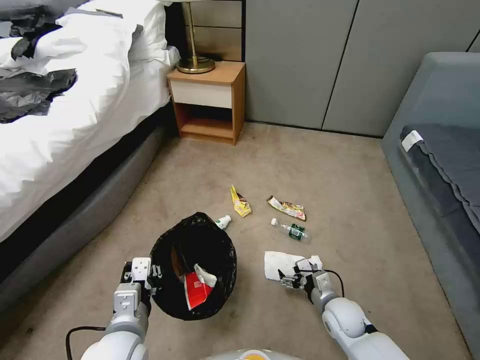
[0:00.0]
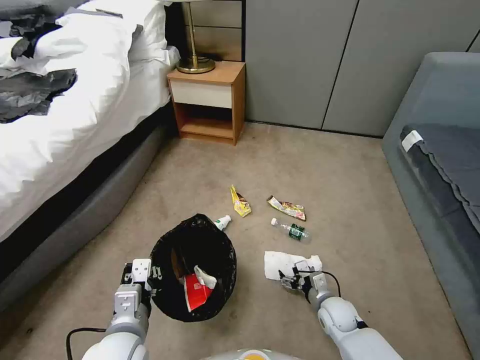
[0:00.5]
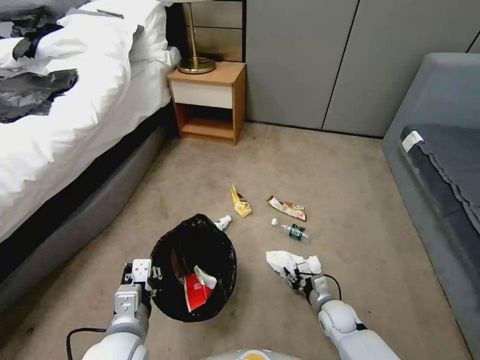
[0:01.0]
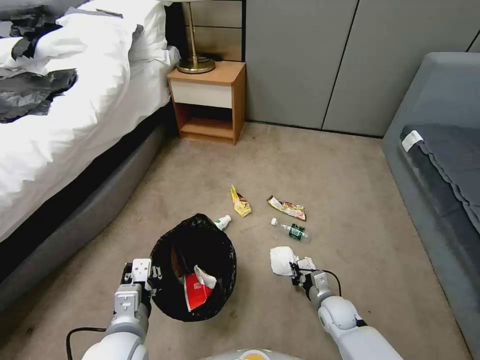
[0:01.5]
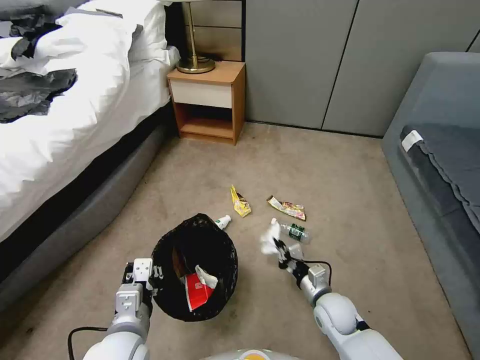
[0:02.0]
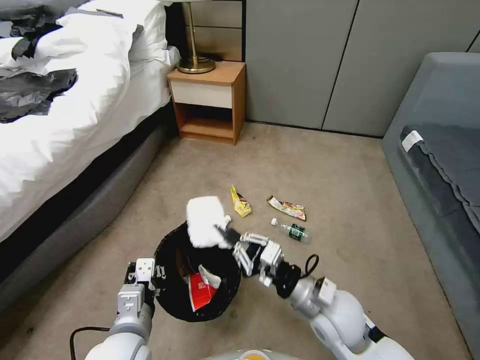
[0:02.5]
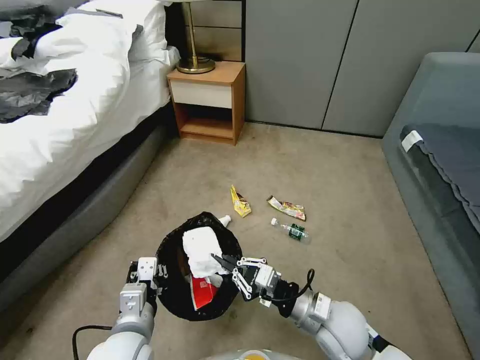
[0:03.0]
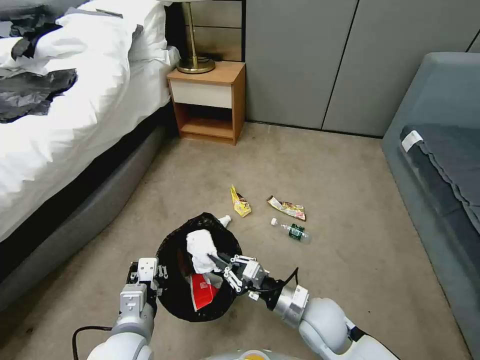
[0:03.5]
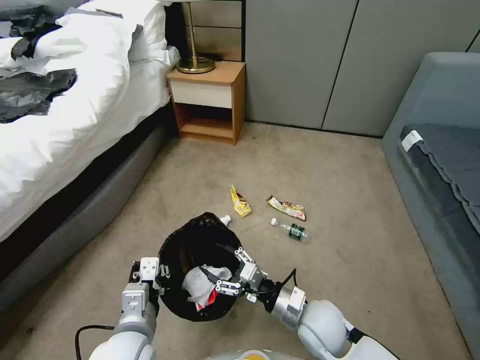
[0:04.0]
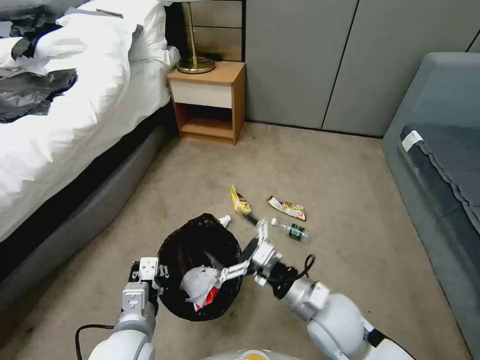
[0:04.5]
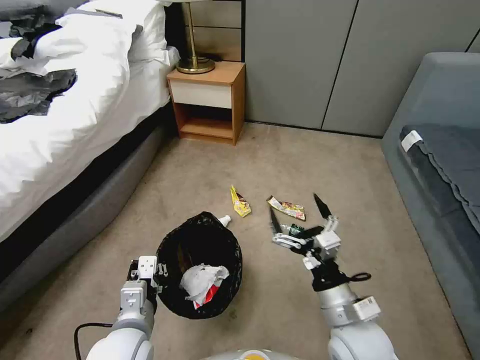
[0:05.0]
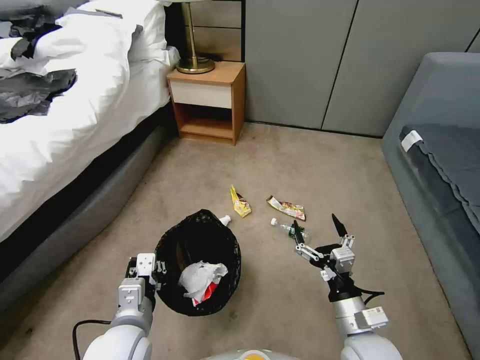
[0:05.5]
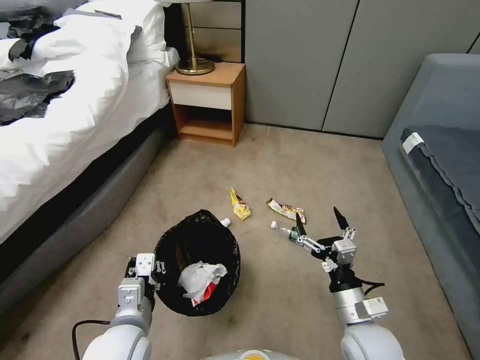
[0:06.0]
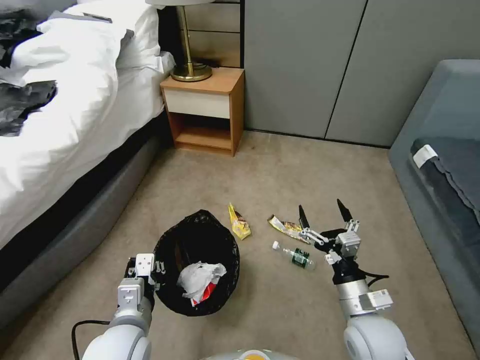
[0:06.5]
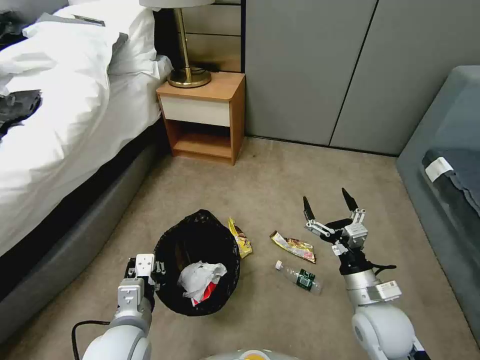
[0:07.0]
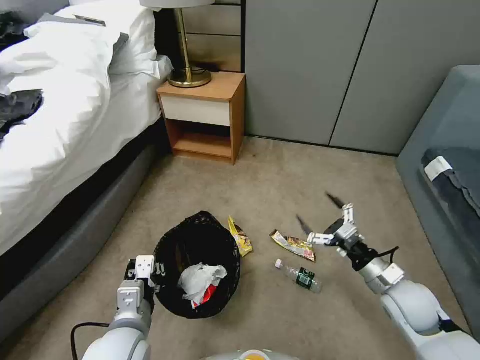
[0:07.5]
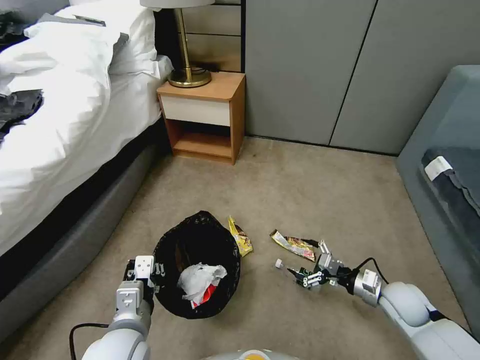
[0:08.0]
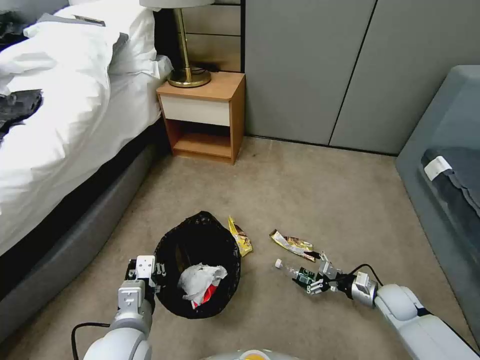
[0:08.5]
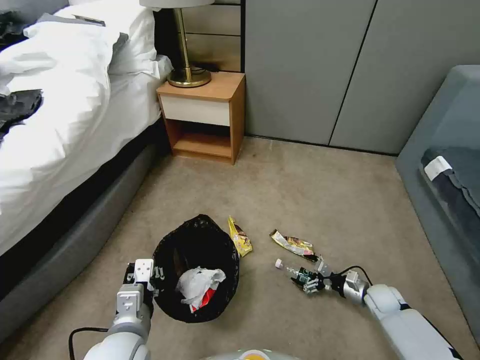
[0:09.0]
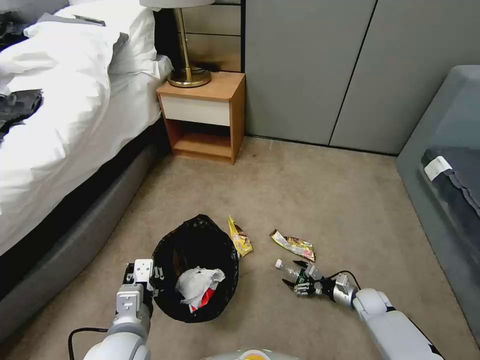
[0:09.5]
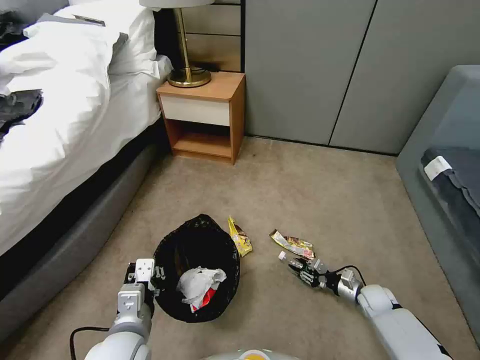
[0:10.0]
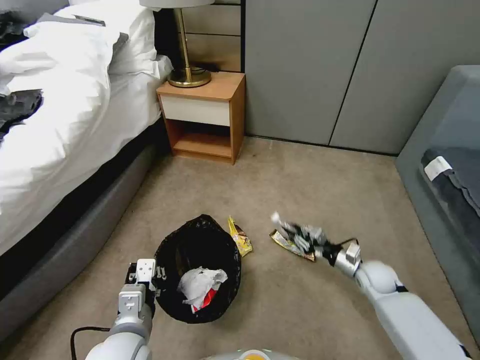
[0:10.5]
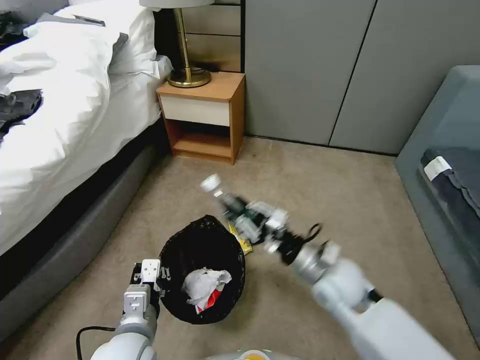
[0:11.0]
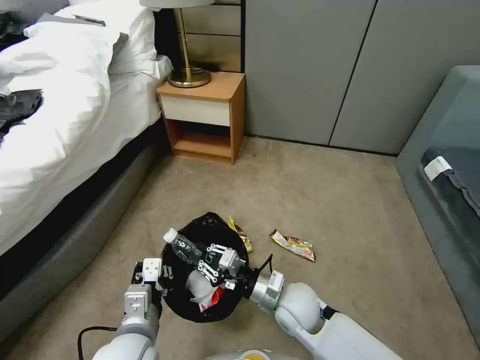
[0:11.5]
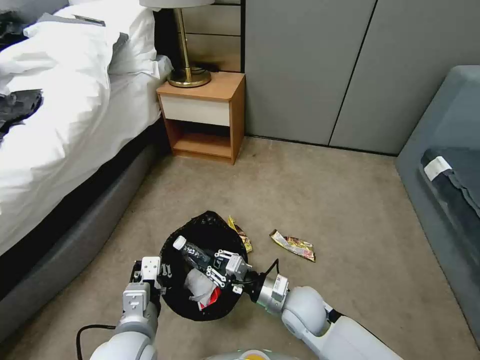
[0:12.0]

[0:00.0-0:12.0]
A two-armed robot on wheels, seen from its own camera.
Task of the whole recording: Pick up the trash bin, then pick up the garbage from the floor and place it into the trash bin.
0:00.0 to 0:02.0: The right gripper goes downward and returns, approximately 5 cm each way, and closes its fingers.
0:02.0 to 0:04.0: The right gripper heads upward and to the left, covering roughly 10 cm, and opens up.
0:04.0 to 0:06.0: The right gripper is displaced to the right by about 10 cm, reaches roughly 10 cm upward, then returns, and opens its fingers.
0:06.0 to 0:08.0: The right gripper goes some 20 cm to the right, forward and downward.
0:08.0 to 0:10.0: The right gripper heads downward, covering approximately 15 cm, and closes up.
0:10.0 to 0:12.0: The right gripper is displaced to the left and upward by about 30 cm.

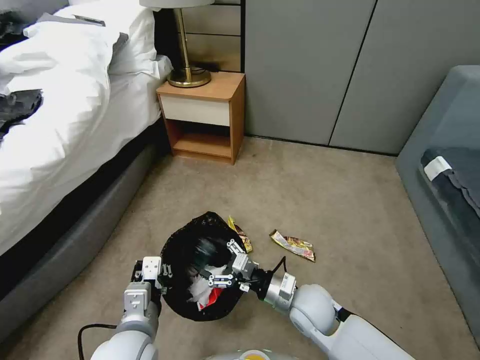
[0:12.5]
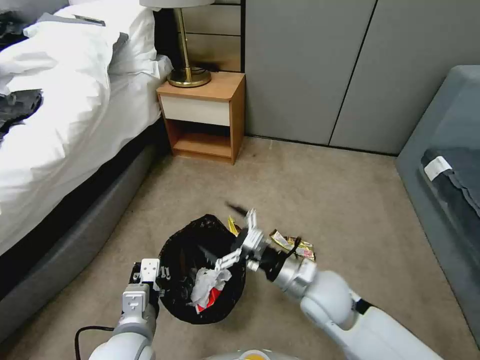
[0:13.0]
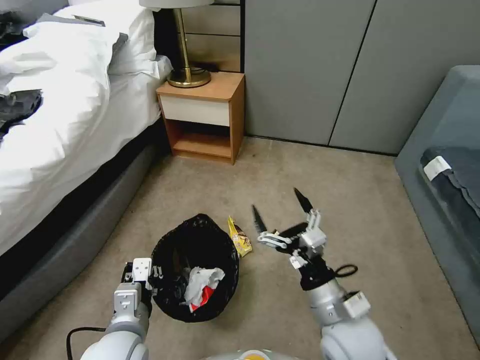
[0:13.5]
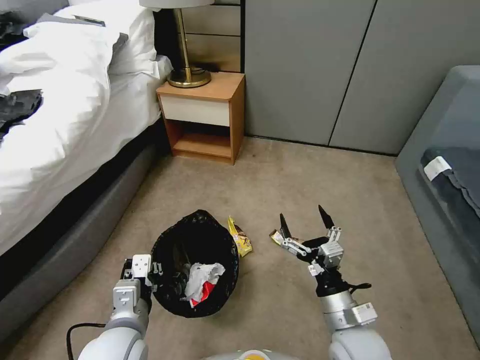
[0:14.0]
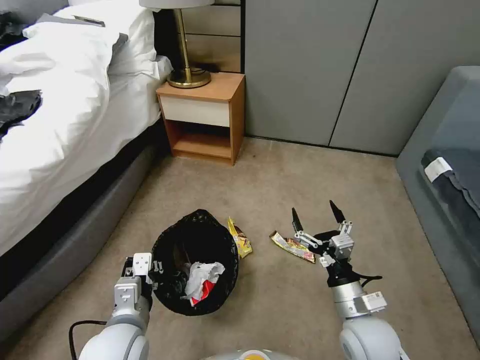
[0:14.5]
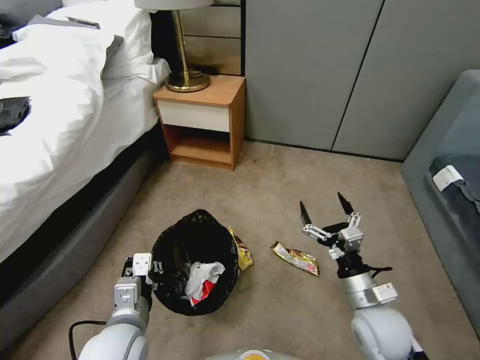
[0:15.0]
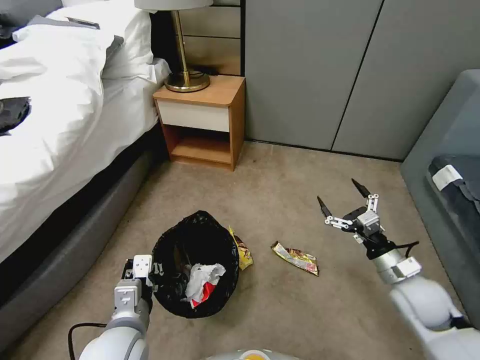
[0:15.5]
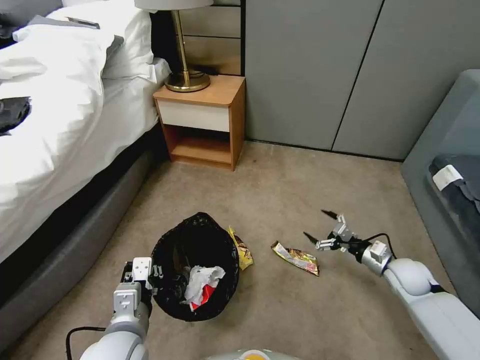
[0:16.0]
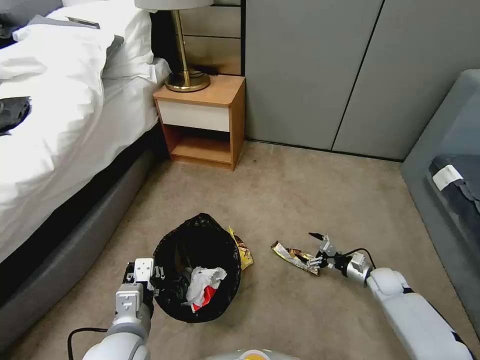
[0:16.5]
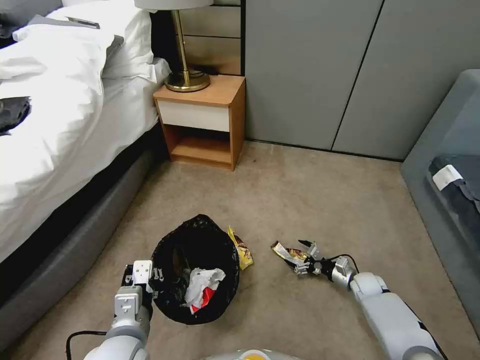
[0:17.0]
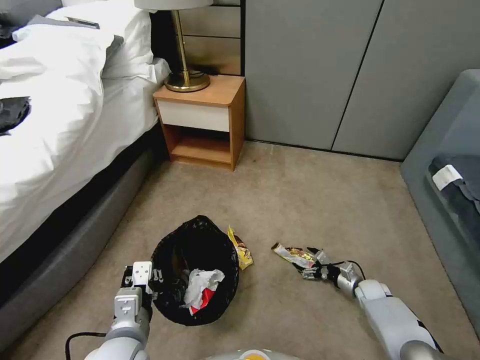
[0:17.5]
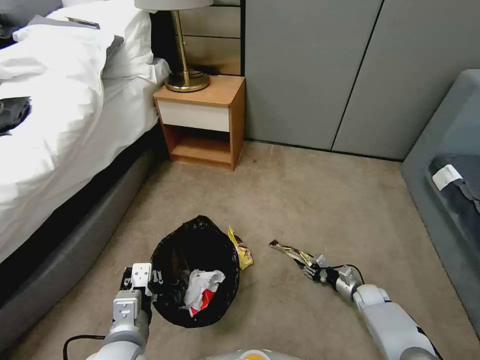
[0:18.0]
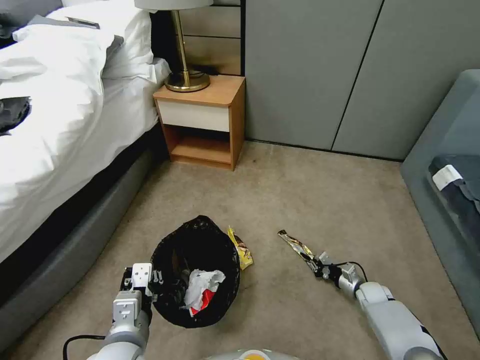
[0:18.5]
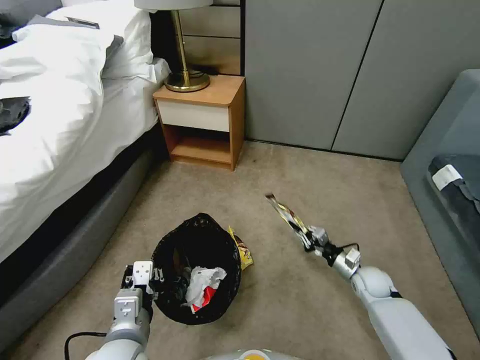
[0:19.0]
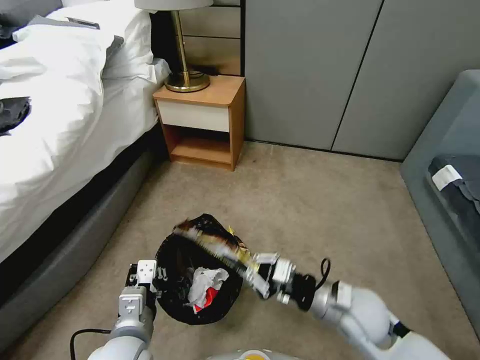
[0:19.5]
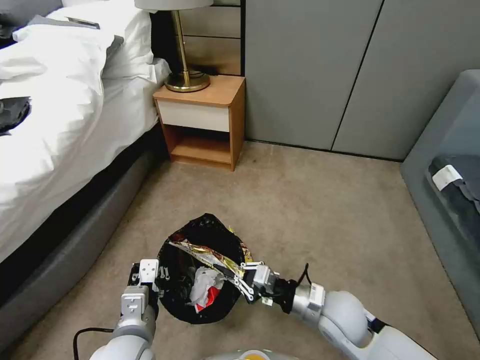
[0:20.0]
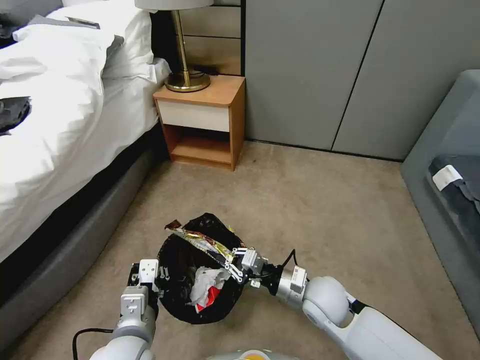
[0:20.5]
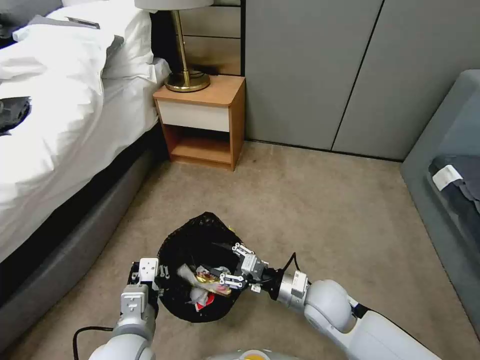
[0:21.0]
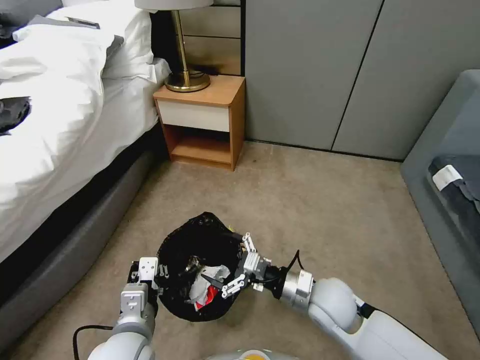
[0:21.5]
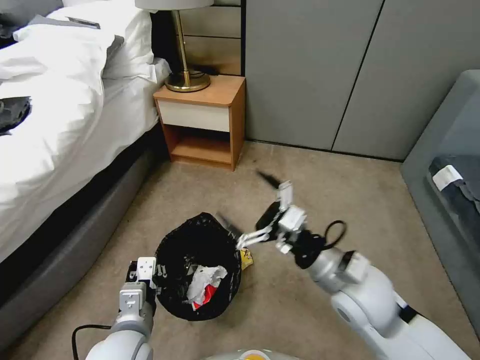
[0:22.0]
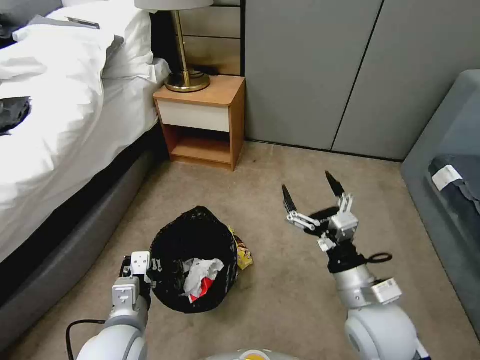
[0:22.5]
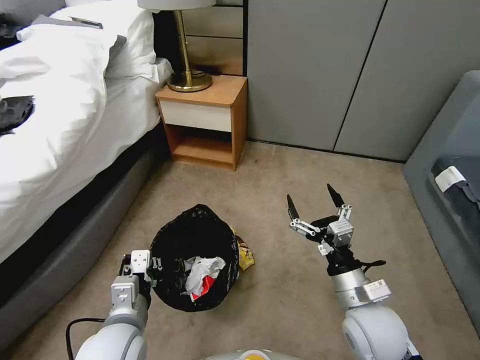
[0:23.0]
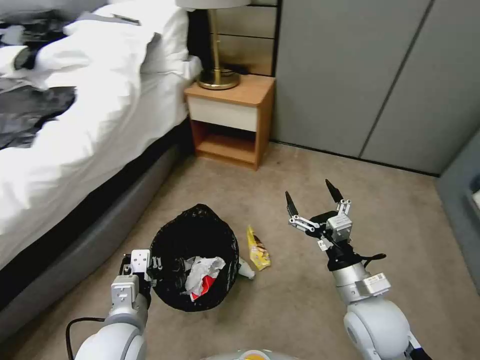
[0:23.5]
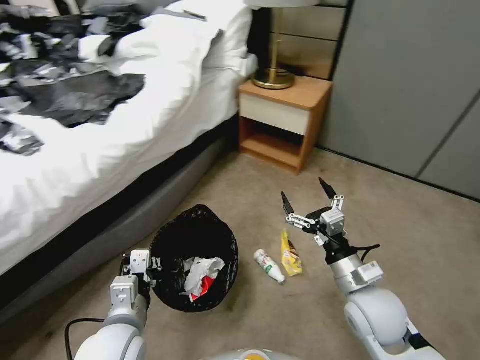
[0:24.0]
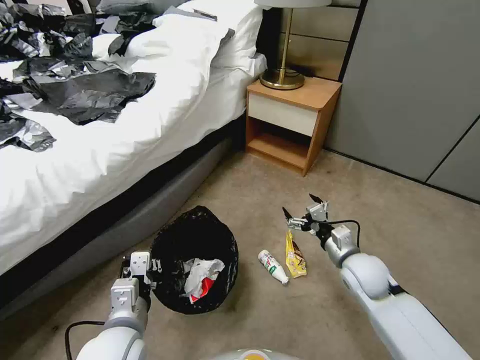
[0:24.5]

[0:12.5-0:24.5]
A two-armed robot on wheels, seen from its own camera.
Task of the whole recording: Pick up the trash bin, then pick up the garbage from the floor and place it into the trash bin.
0:12.5 to 0:14.5: The right gripper shifts some 10 cm to the right and backward, and moves roughly 10 cm upward and comes back.
0:14.5 to 0:16.5: The right gripper travels to the right, downward and forward by about 30 cm.
0:16.5 to 0:18.5: The right gripper is displaced downward by some 5 cm, and closes its fingers.
0:18.5 to 0:20.5: The right gripper moves to the left and upward, some 30 cm.
0:20.5 to 0:22.5: The right gripper goes about 15 cm upward and backward, and opens up.
0:22.5 to 0:24.5: The right gripper is displaced forward, downward and to the right by about 15 cm.

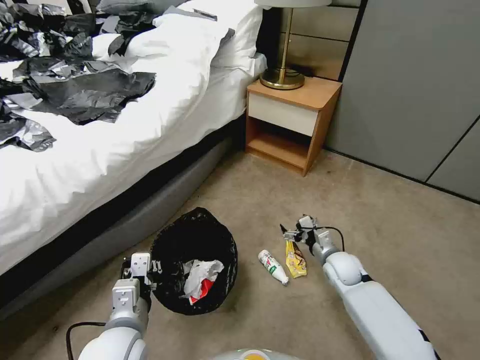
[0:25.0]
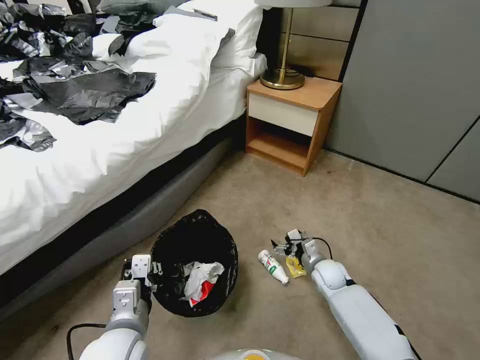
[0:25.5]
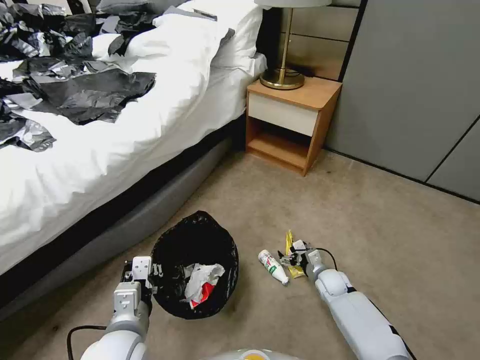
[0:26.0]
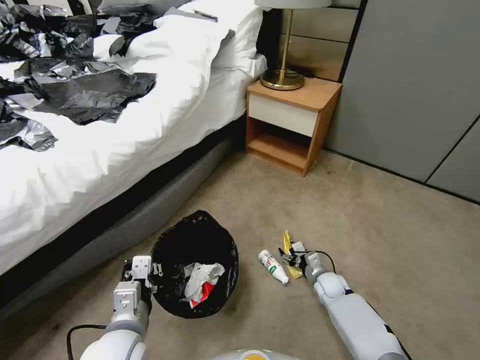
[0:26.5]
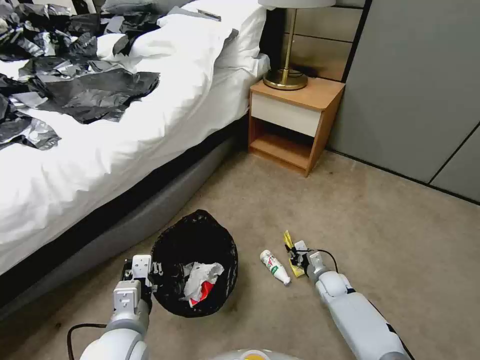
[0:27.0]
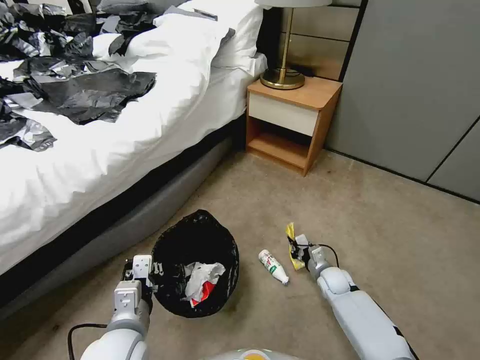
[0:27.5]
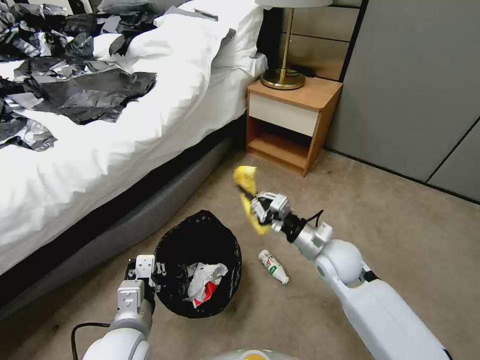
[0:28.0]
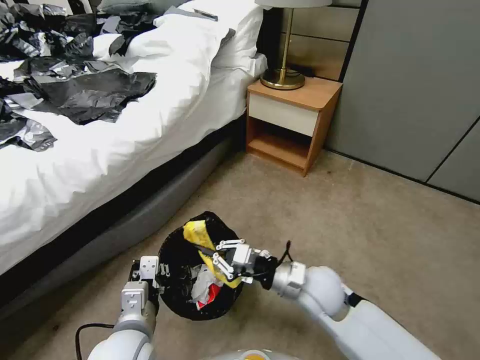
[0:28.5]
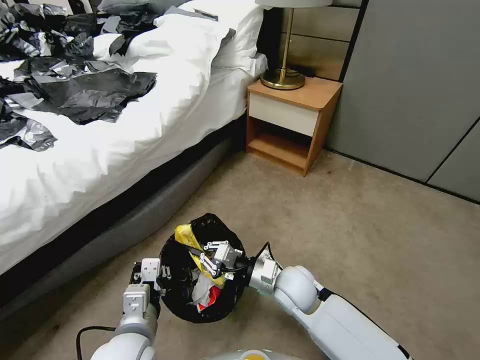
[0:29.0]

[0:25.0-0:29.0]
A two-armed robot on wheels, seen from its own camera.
Task of the whole recording: Pick up the trash bin, then pick up the garbage from the floor and place it into the trash bin.
0:25.0 to 0:27.0: The right gripper is displaced downward by about 10 cm, and closes its fingers.
0:27.0 to 0:29.0: The right gripper goes some 25 cm upward and to the left.
